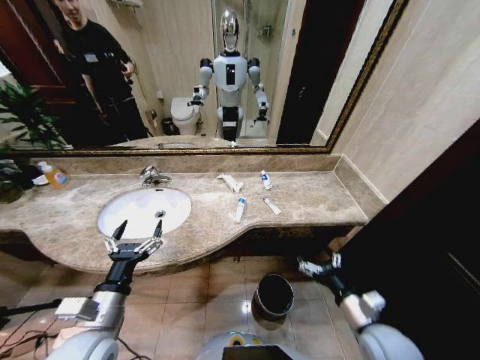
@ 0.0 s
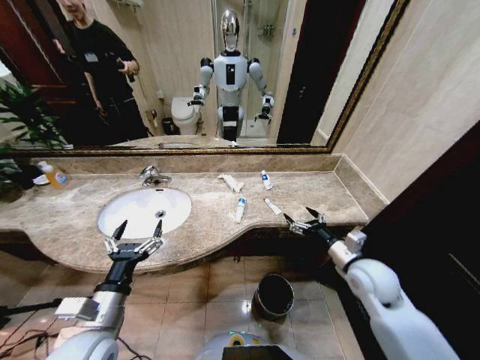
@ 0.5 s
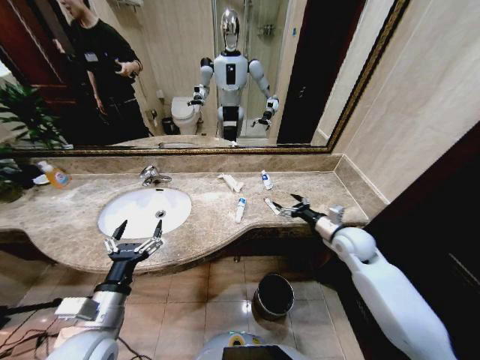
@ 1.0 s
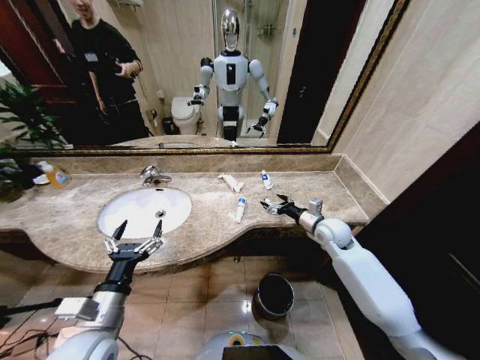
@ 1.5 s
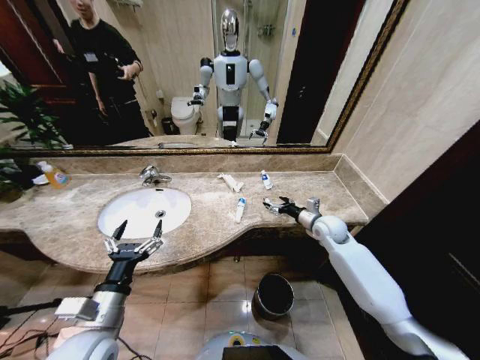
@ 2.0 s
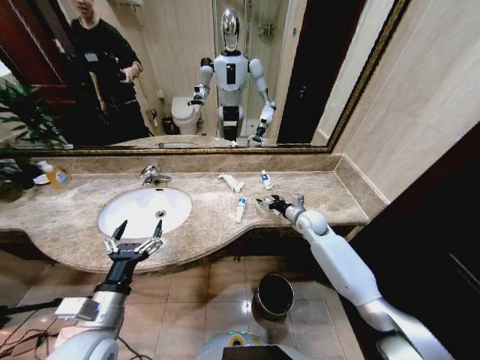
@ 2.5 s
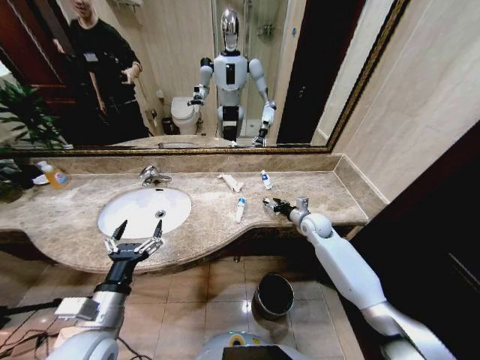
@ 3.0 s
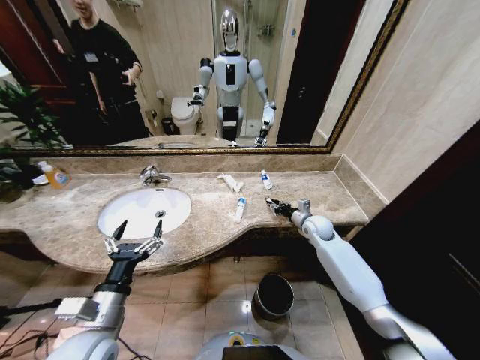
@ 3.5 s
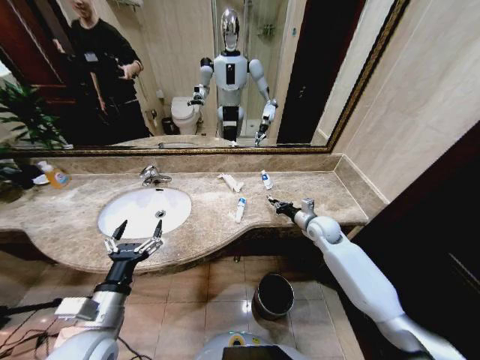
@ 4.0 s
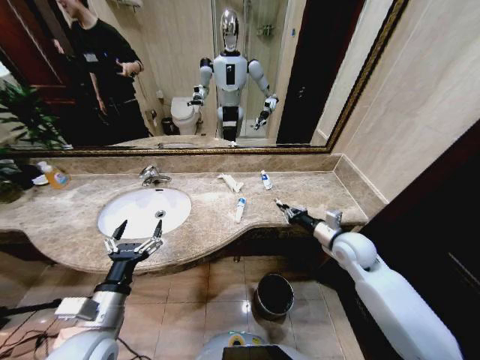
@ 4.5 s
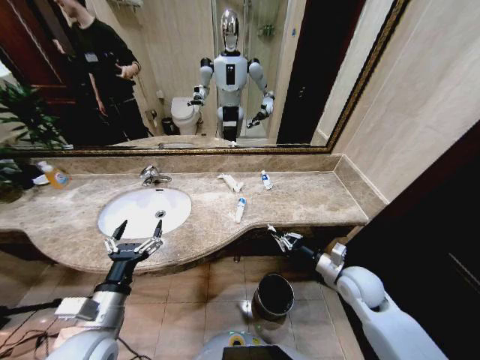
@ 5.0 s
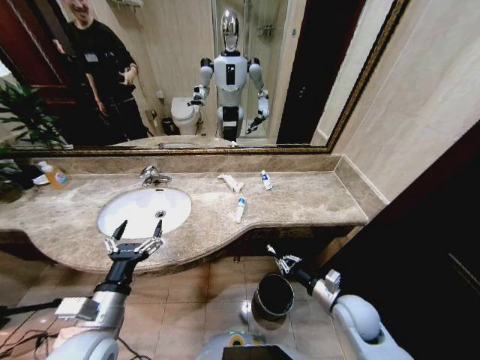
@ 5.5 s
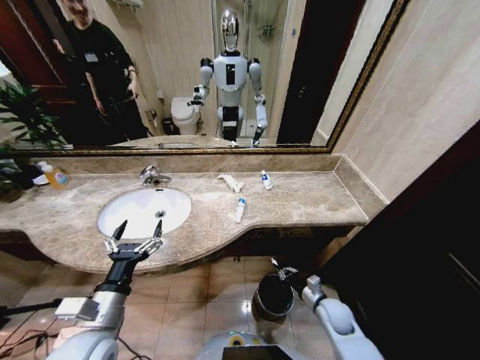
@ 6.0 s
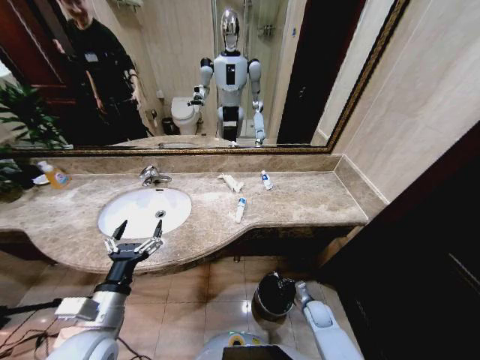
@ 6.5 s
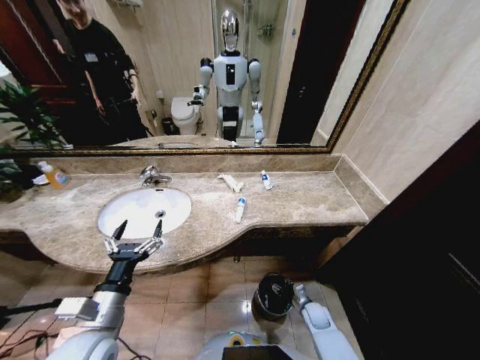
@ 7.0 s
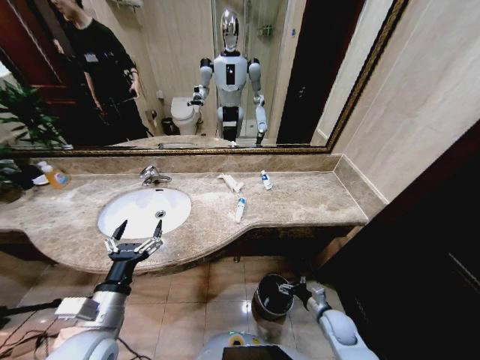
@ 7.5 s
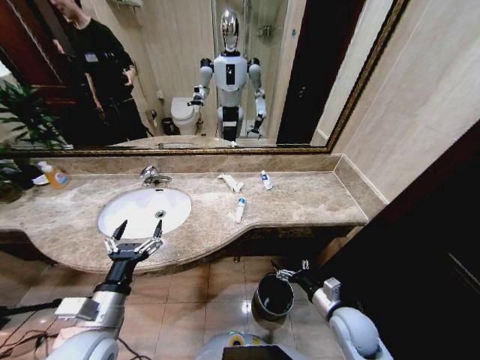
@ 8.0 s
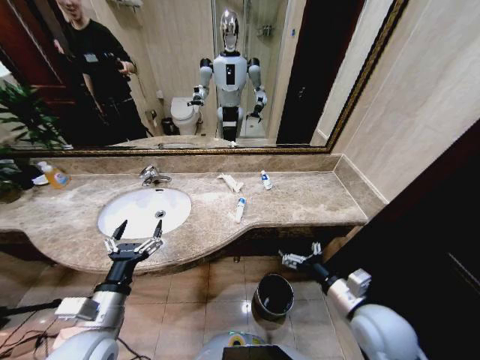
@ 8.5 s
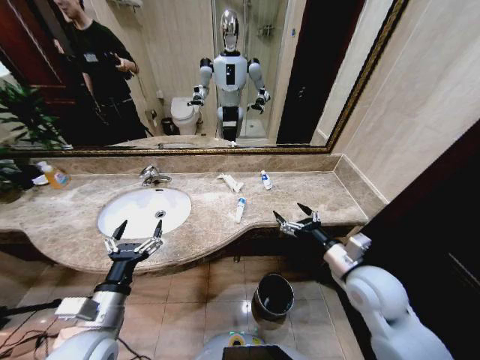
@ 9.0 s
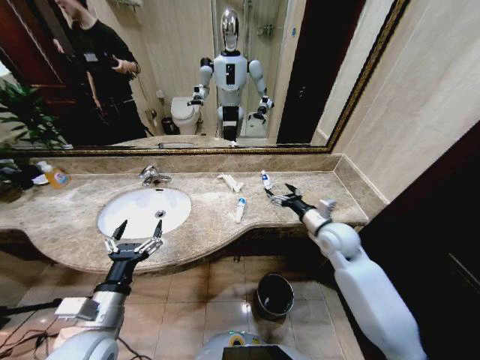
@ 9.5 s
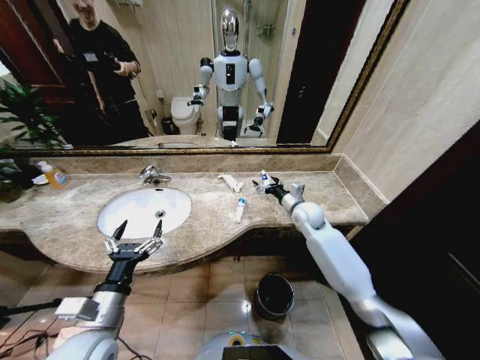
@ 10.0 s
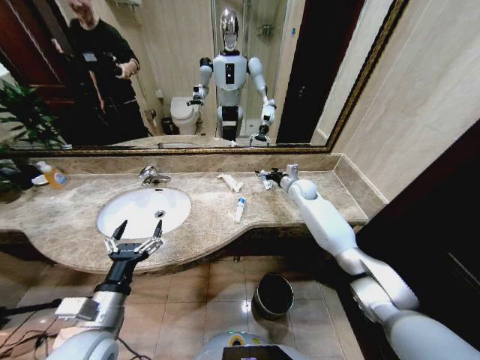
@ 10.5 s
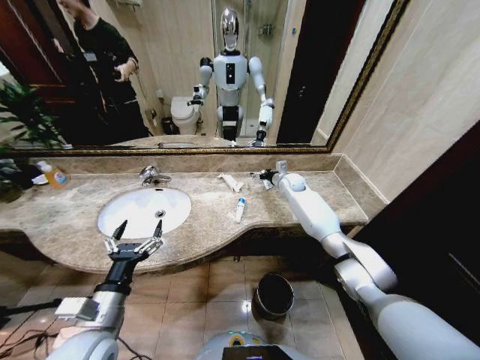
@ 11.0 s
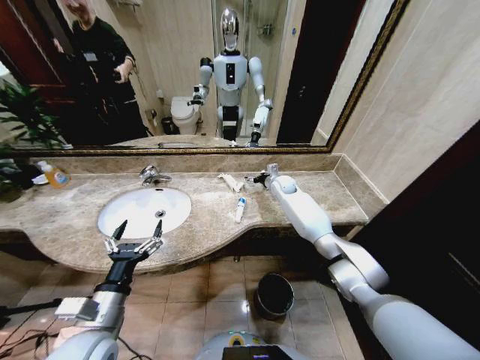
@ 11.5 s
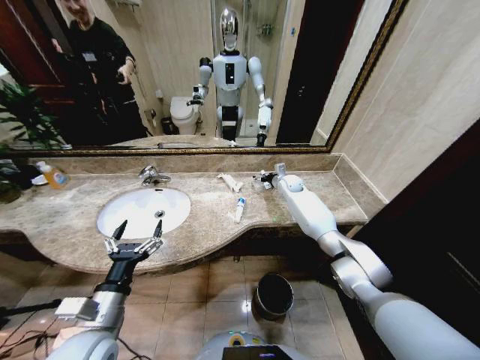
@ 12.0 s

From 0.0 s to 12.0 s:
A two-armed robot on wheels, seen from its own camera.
Task of the whole recording: Pick up the trash from the sink and place it in the trash bin.
From 0.0 s to 2.0 s: The right gripper shifts roughly 30 cm forward.
From 2.0 s to 4.0 s: The right gripper closes its fingers.
From 4.0 s to 6.0 s: The right gripper goes roughly 25 cm backward and downward.
From 6.0 s to 8.0 s: The right gripper goes roughly 10 cm upward, and opens.
From 8.0 s to 10.0 s: The right gripper is displaced forward and upward by roughly 30 cm.
From 10.0 s to 12.0 s: The right gripper goes approximately 15 cm forward.

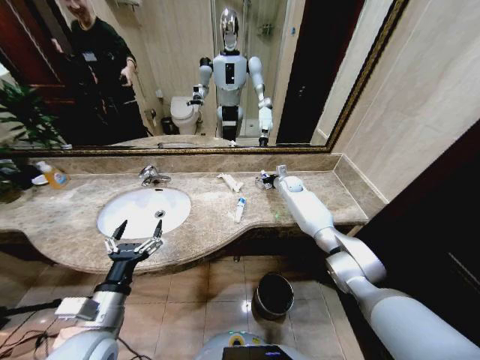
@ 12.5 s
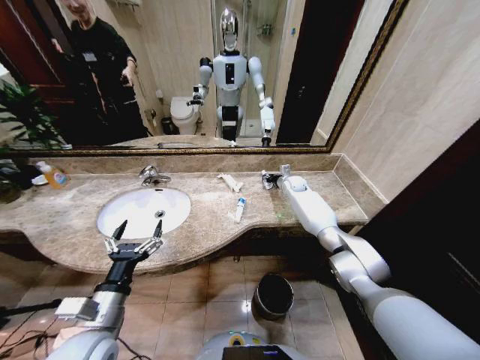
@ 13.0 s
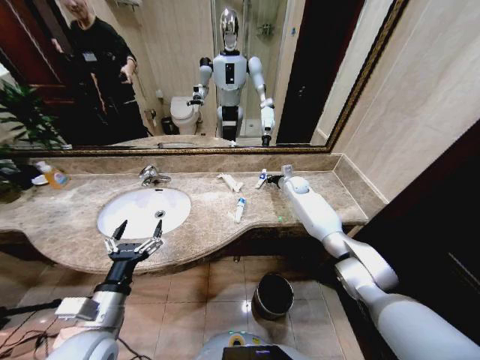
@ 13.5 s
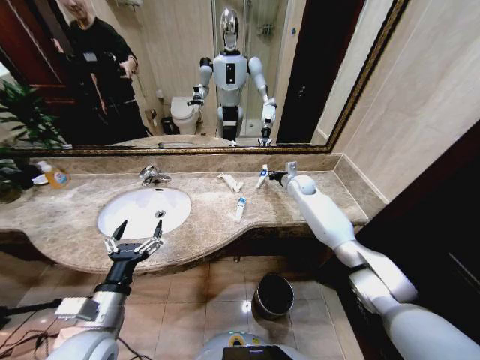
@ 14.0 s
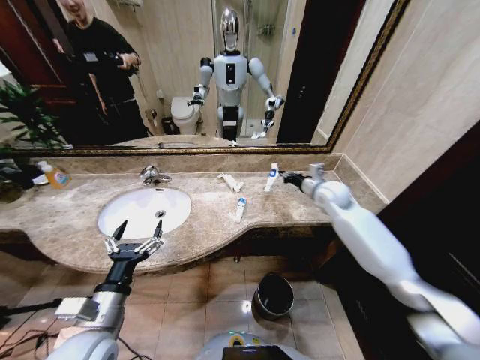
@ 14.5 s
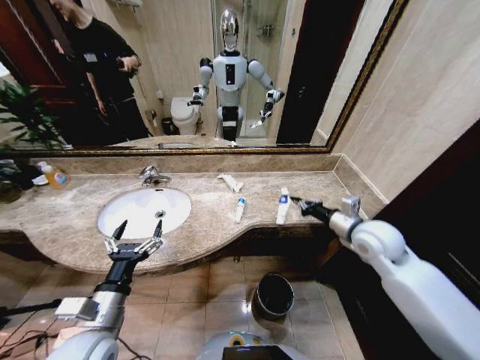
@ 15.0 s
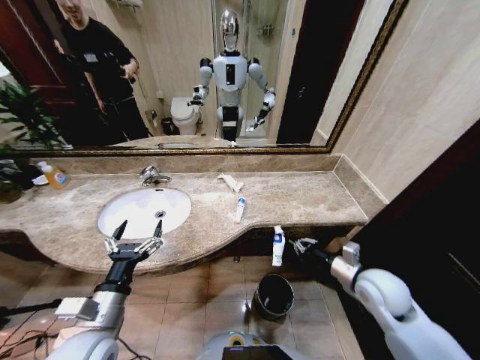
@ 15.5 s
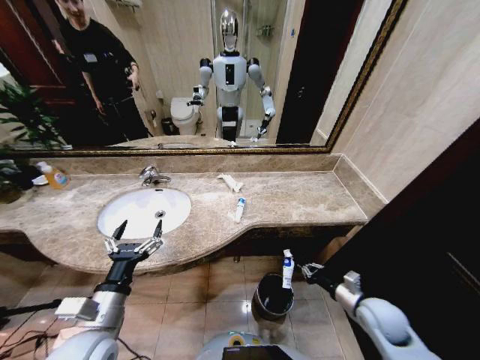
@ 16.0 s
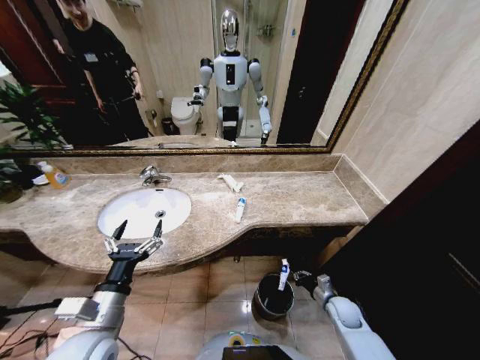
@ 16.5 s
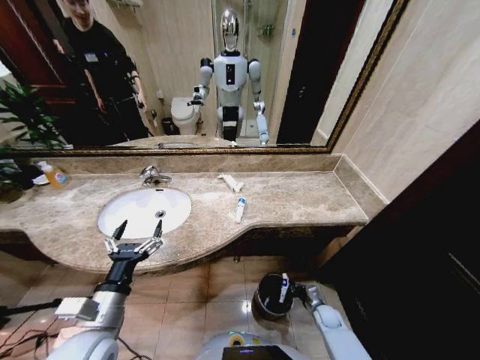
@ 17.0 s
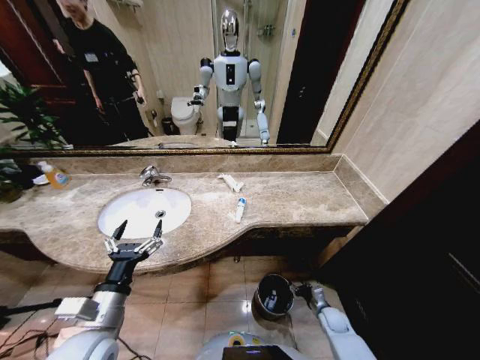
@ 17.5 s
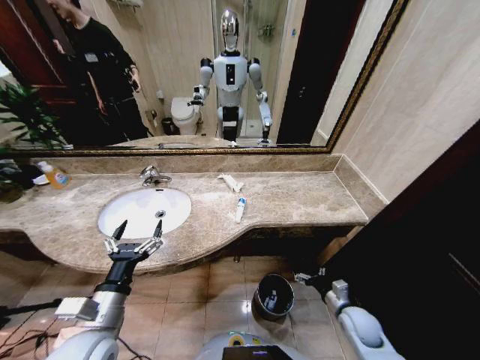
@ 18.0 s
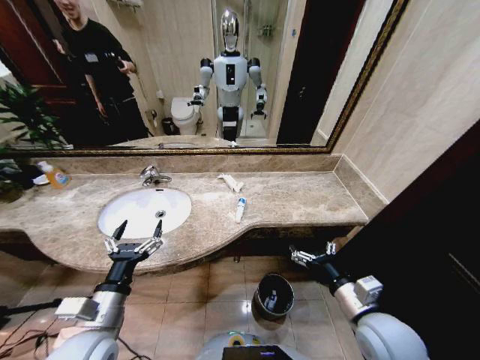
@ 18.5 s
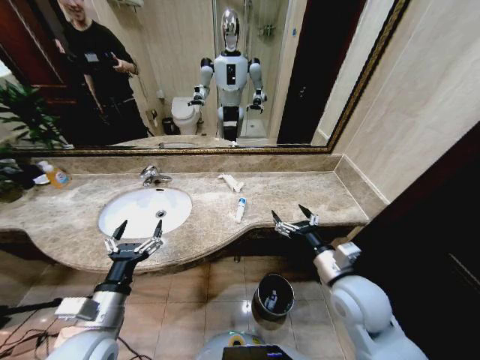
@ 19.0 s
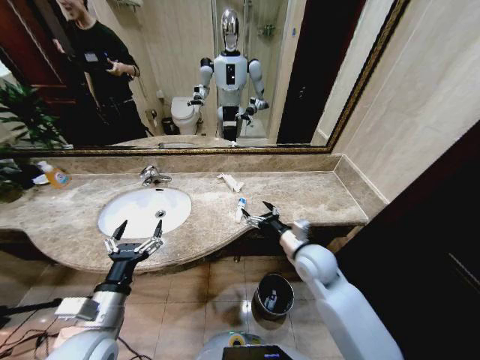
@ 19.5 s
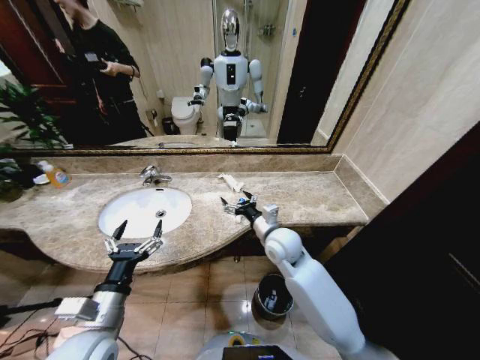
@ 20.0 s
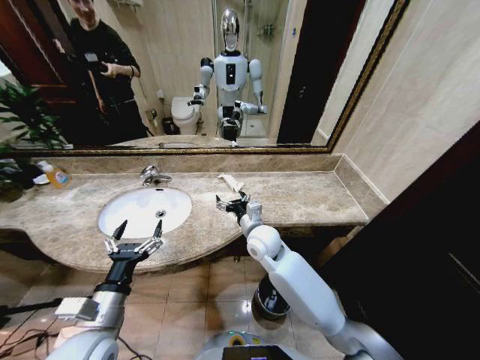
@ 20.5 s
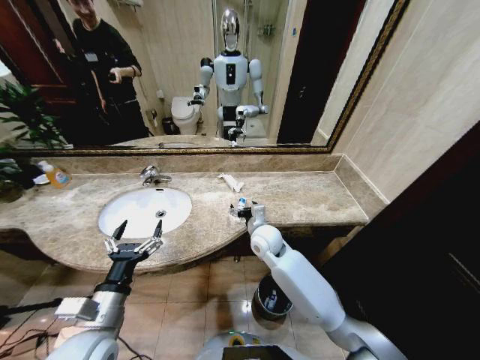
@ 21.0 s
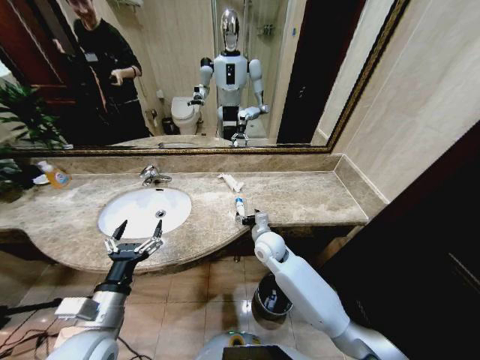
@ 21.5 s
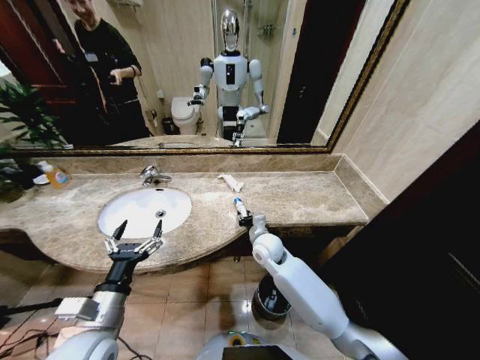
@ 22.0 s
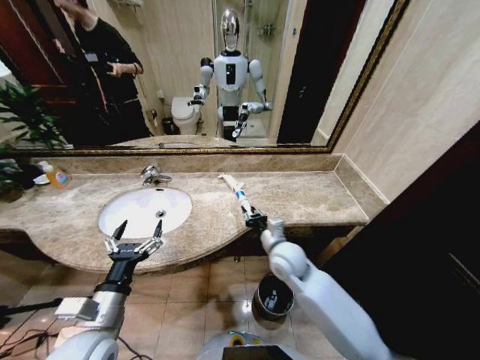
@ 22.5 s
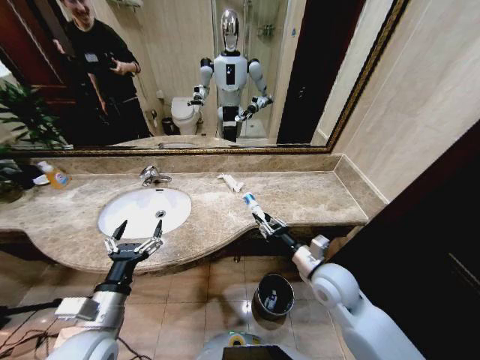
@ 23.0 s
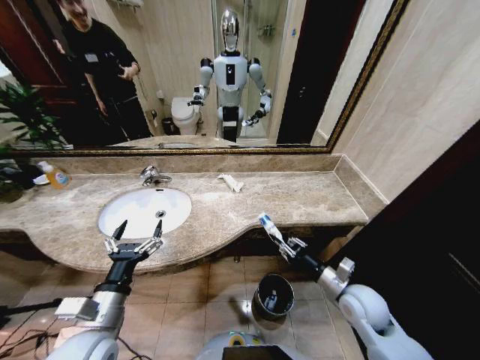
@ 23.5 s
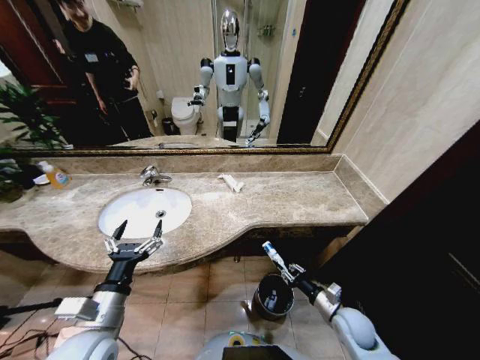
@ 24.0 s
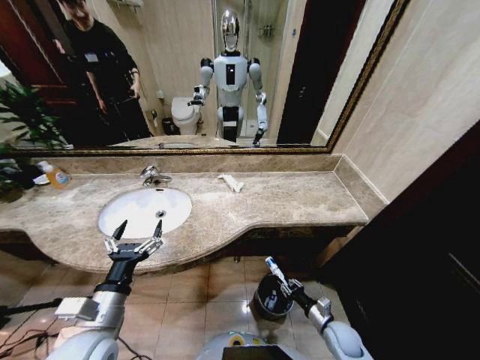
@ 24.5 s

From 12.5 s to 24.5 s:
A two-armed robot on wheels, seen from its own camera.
Task of the whole recording: Pick up the trash from the sink and place it in the trash bin.
From 12.5 s to 14.5 s: The right gripper goes roughly 20 cm backward and upward, and closes up.
From 14.5 s to 16.5 s: The right gripper is displaced downward and backward by some 40 cm.
From 16.5 s to 18.5 s: The right gripper goes approximately 25 cm upward, and opens.
From 18.5 s to 20.5 s: The right gripper moves forward and to the left, about 30 cm.
From 20.5 s to 22.5 s: The right gripper goes approximately 5 cm to the right, and closes its fingers.
From 22.5 s to 24.5 s: The right gripper heads downward, to the right and backward, covering roughly 35 cm.

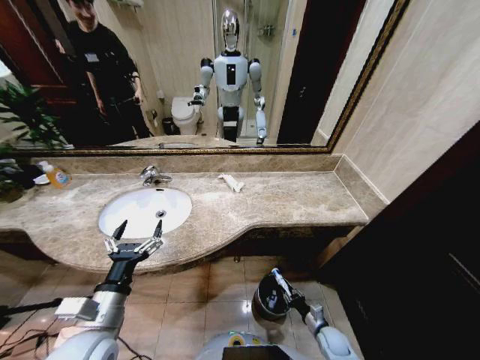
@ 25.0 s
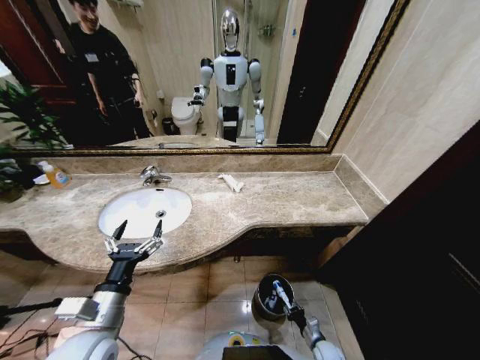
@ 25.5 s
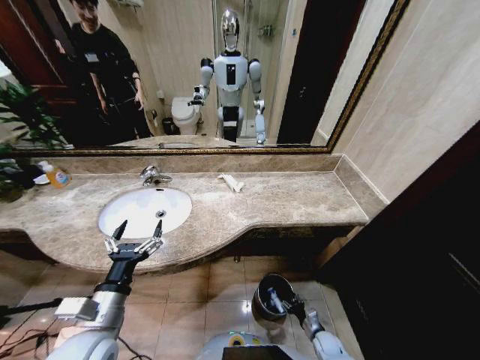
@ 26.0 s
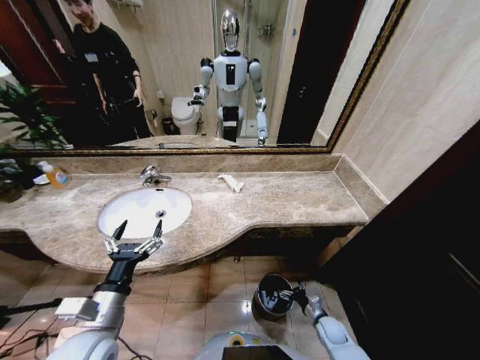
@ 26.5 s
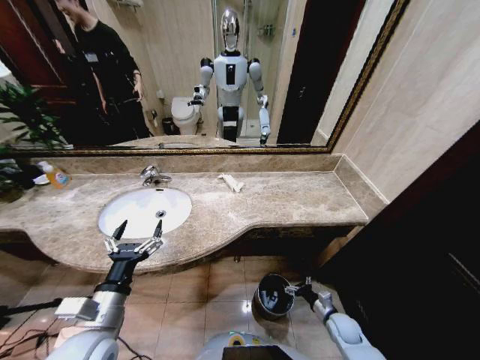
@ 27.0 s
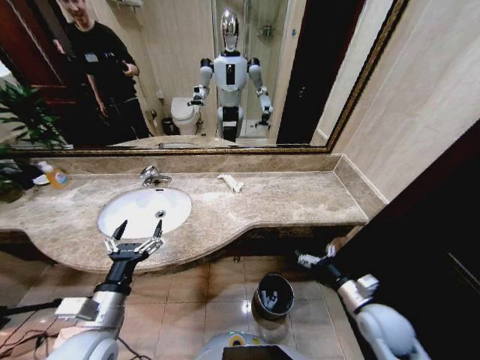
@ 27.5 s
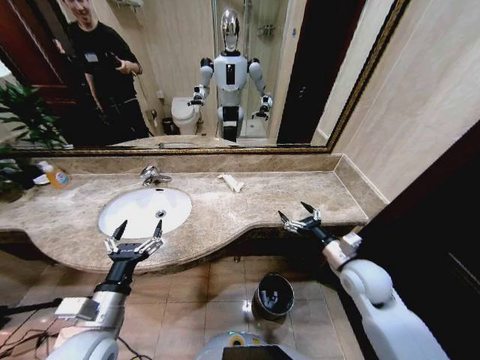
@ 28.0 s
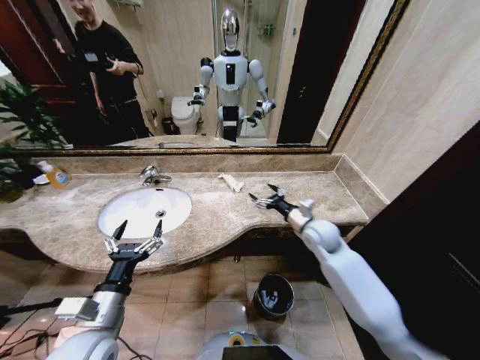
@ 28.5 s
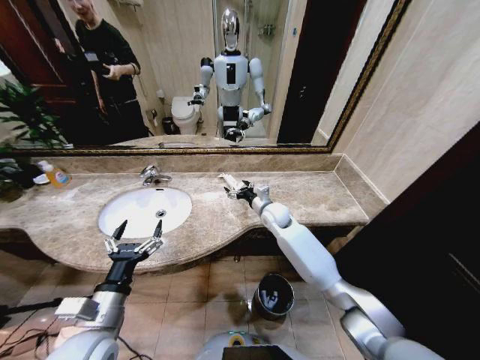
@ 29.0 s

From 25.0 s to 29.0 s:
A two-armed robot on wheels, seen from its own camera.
Task of the whole recording: Pick up the trash from the sink and place it in the trash bin.
From 25.0 s to 27.0 s: The right gripper travels upward by approximately 5 cm, and opens up.
From 27.0 s to 29.0 s: The right gripper shifts some 50 cm forward, upward and to the left.
